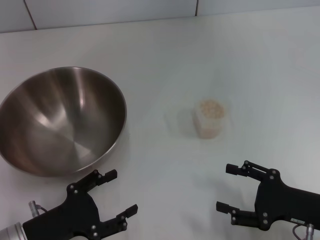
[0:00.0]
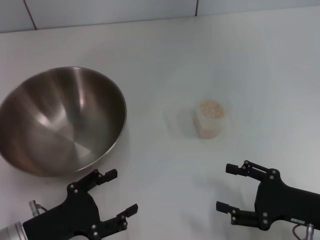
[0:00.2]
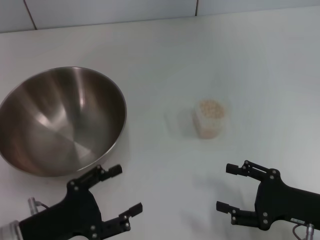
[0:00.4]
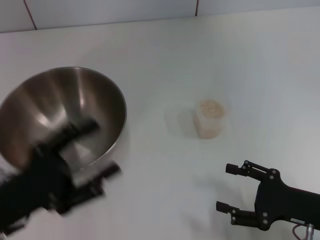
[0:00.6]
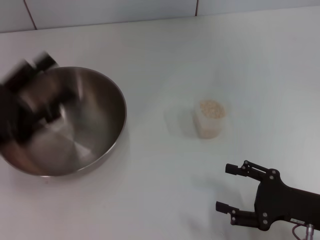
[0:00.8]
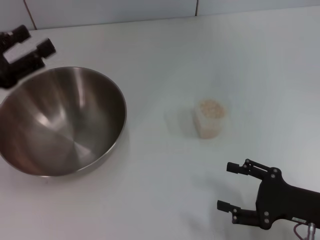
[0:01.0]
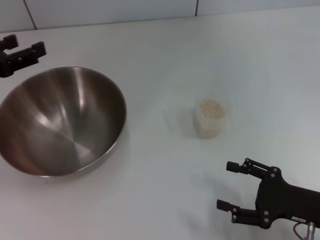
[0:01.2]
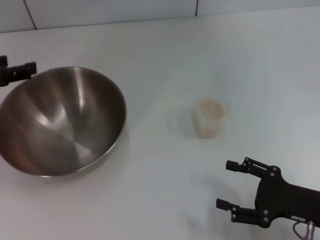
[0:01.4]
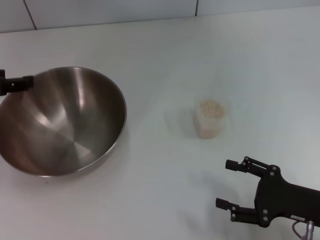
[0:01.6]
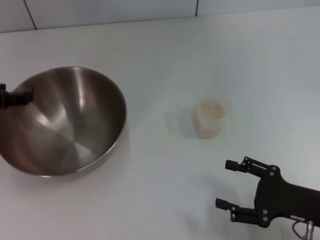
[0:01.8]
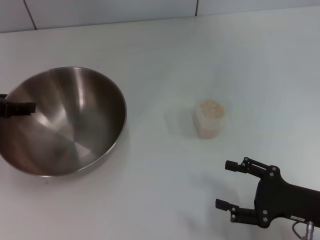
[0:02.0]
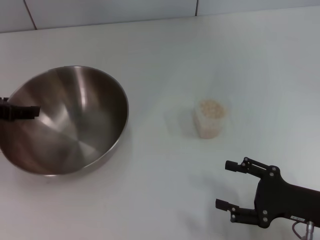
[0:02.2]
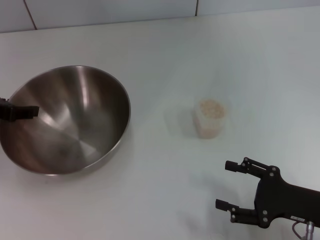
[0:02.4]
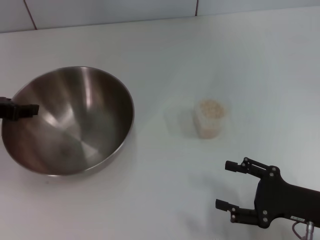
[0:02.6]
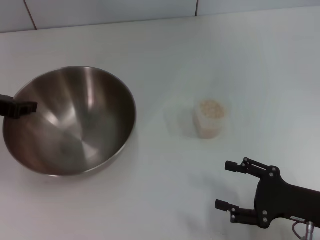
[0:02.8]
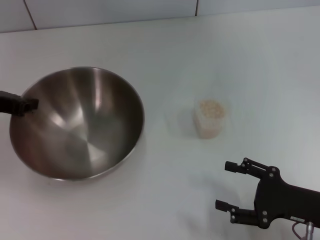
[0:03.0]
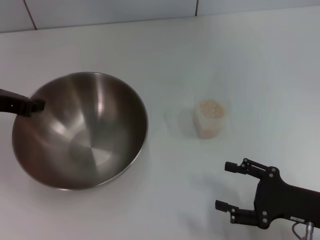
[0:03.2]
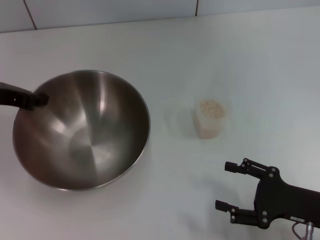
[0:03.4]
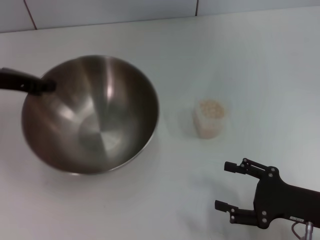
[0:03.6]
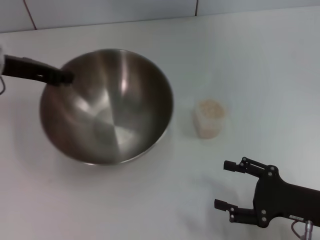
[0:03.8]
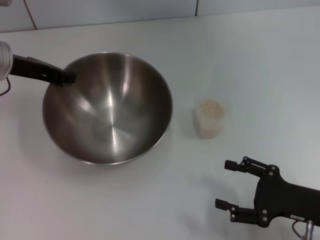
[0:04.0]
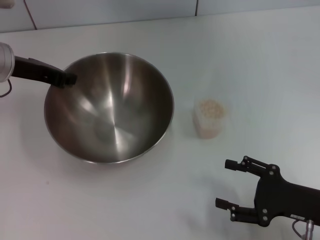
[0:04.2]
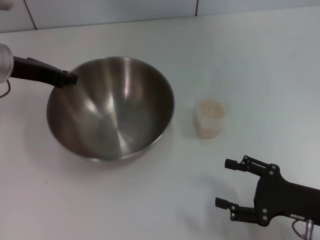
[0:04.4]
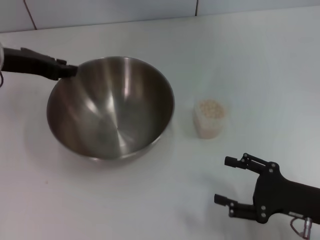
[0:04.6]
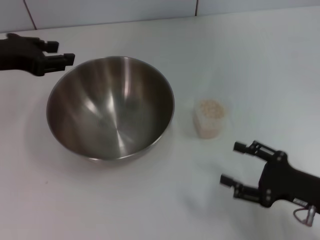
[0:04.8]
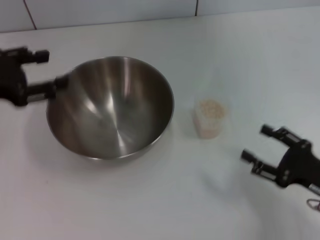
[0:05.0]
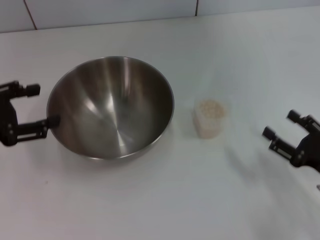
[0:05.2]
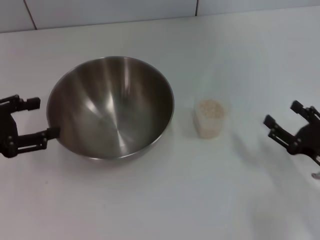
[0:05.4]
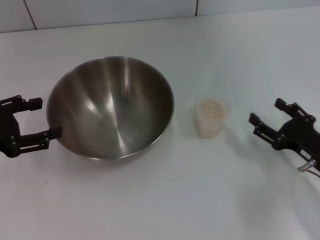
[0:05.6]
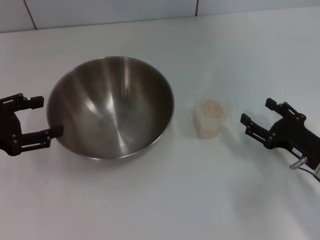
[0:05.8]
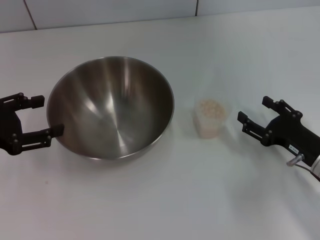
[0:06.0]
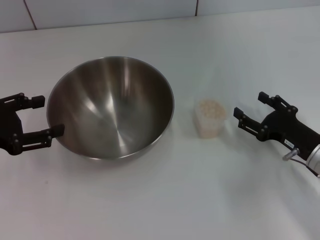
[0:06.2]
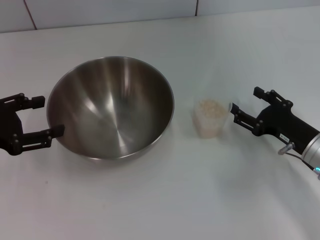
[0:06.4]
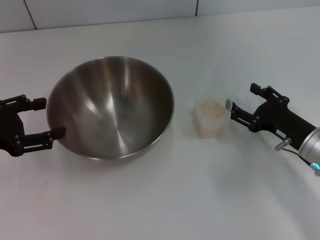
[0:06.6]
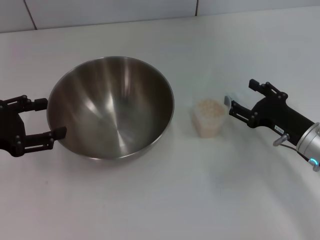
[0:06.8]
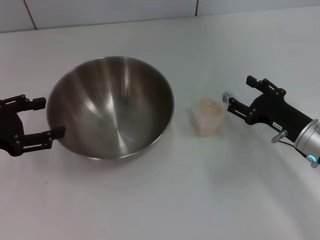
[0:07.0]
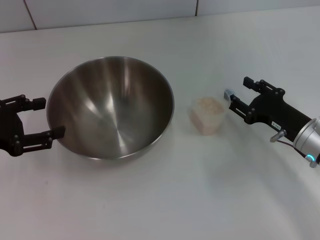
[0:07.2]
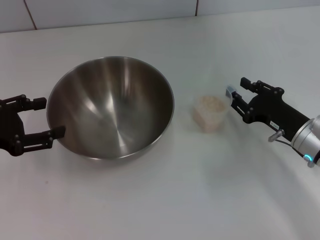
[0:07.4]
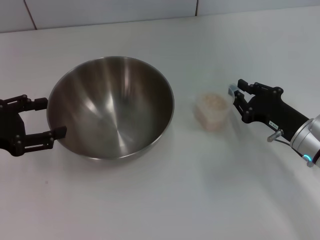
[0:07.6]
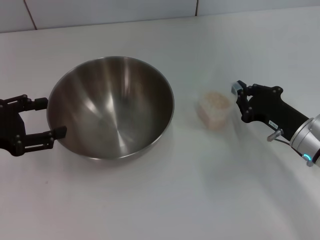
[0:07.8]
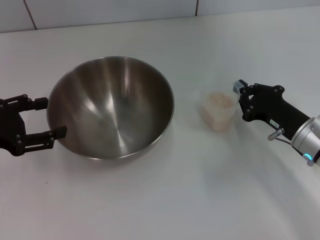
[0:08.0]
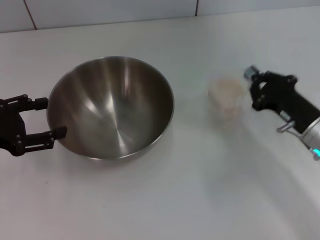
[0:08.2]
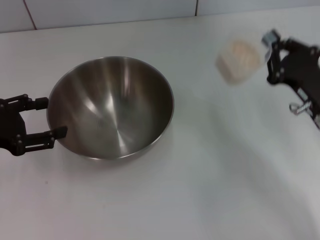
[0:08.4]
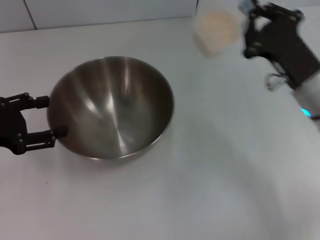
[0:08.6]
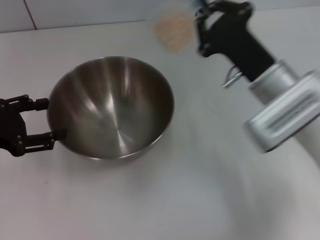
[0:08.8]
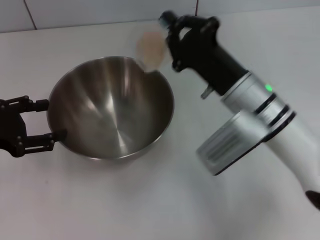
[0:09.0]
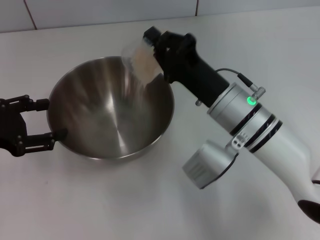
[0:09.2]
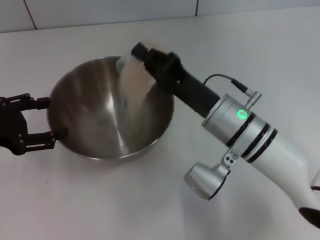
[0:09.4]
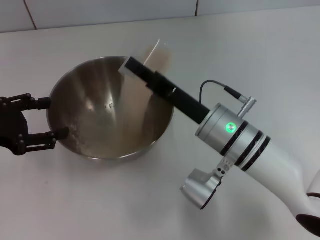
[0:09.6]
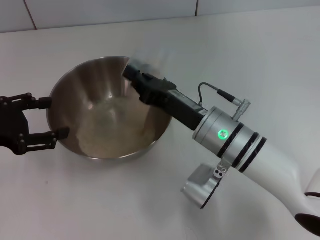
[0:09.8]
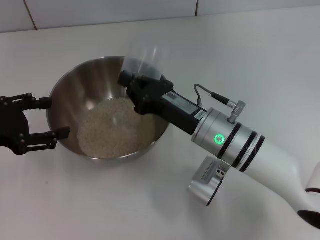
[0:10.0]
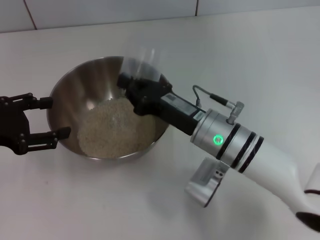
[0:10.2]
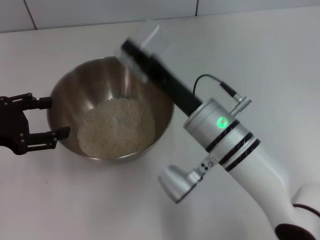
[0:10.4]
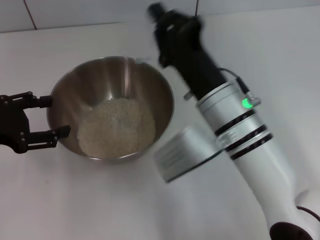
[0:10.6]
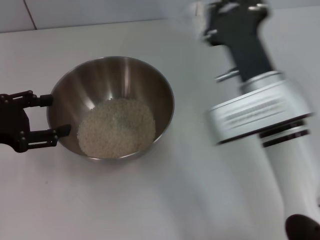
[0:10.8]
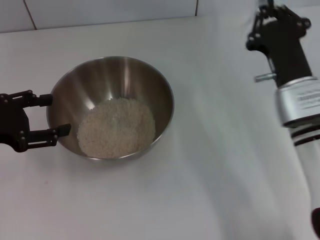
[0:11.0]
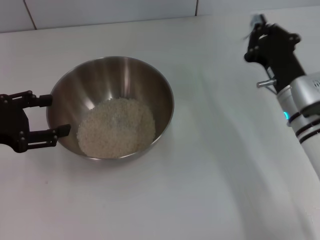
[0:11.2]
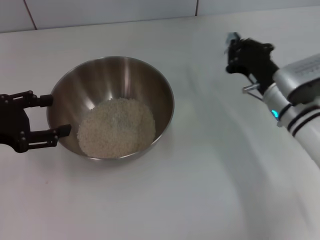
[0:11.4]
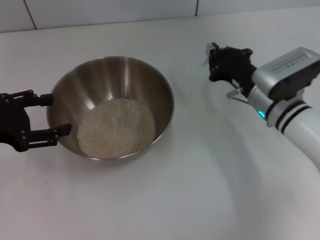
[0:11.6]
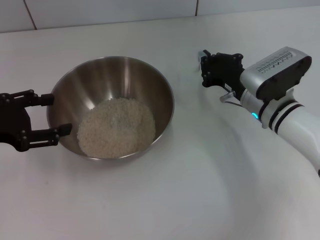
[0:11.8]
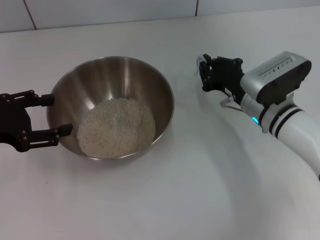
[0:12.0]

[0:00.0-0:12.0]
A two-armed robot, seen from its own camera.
Task of the whole recording: Place the bowl in the middle of the table with one hand and pour the rice from the grain cup into it with the other hand.
Step, 0.0 to 2.8 s: Pick up the bowl with the left gripper.
Step, 3.2 to 4.6 s: Place the bowl in the center of view with the left gripper.
Step, 4.8 to 8.2 s: Pick up the cup with rice in it with the right gripper.
Step, 8.6 to 10.8 s: Pour the rice from the cup into the bowl with the right gripper.
0.0 to 1.6 s: The left gripper moves forward, upward and to the left, approximately 25 cm.
1.6 to 3.0 s: The left gripper closes its fingers.
3.0 to 4.4 s: The left gripper is displaced to the right and forward by roughly 10 cm.
4.4 to 6.0 s: The right gripper travels forward by about 5 cm, while the left gripper travels backward and to the left by about 15 cm, and opens its fingers.
6.0 to 7.6 s: The right gripper moves some 5 cm, and closes.
7.6 to 9.0 s: The right gripper travels to the left and upward by approximately 15 cm, and closes its fingers.
9.0 to 10.4 s: The right gripper travels to the left by about 5 cm.
10.4 to 12.0 s: The right gripper shifts about 15 cm to the right and forward.

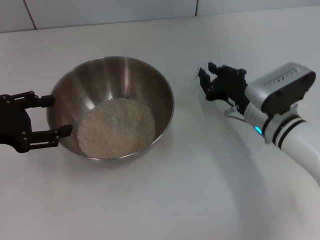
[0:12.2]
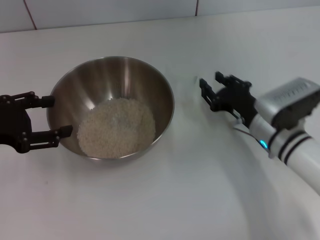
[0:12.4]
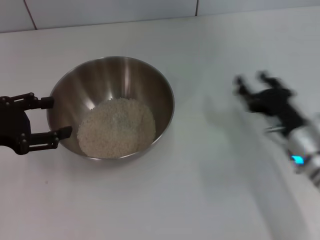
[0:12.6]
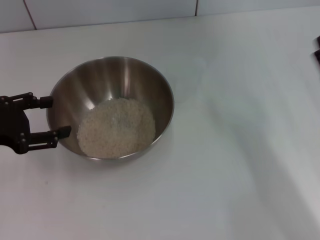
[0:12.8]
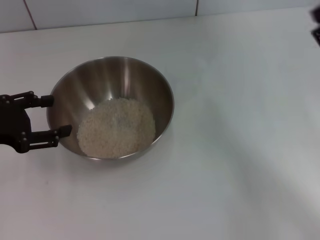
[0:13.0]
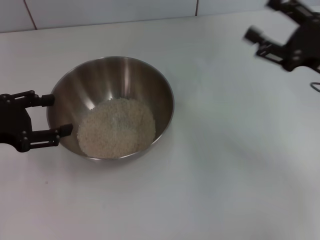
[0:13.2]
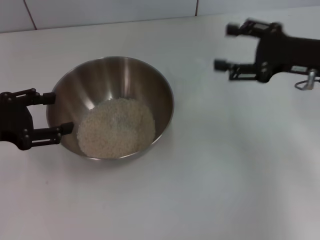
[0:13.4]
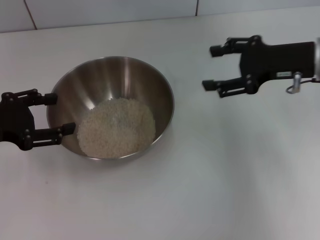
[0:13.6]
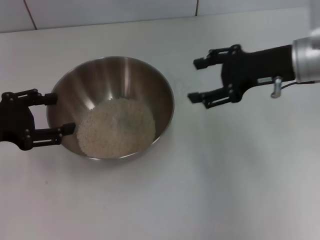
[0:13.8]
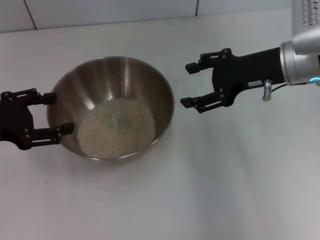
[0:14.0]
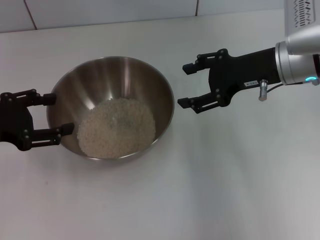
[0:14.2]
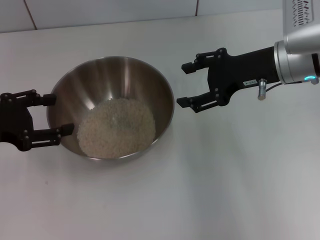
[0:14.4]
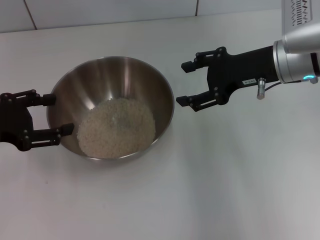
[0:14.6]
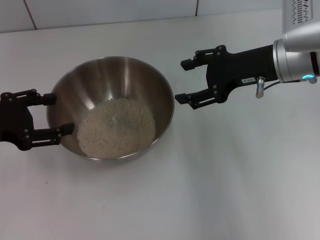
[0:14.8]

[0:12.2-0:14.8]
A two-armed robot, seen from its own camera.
Task of the whole recording: Place the bowl in the middle of the table with one hand and pour the rice from the grain cup into it with the other hand.
12.2 to 13.4 s: The right gripper travels upward and to the right by roughly 15 cm, and opens up.
13.4 to 14.8 s: The right gripper travels to the left by approximately 5 cm.

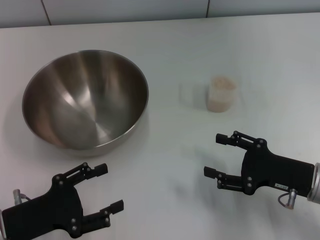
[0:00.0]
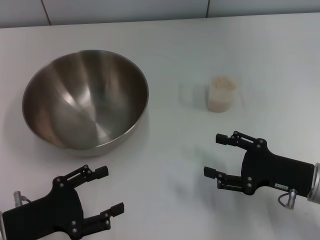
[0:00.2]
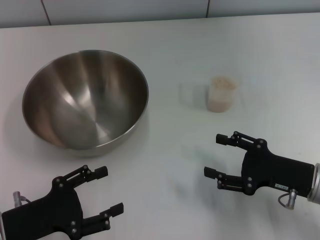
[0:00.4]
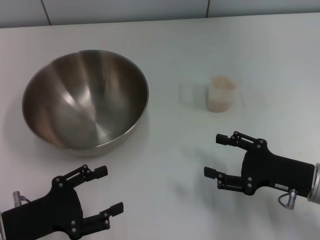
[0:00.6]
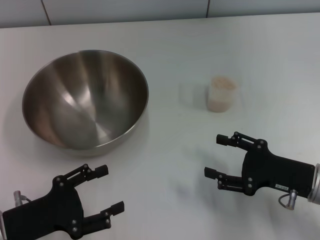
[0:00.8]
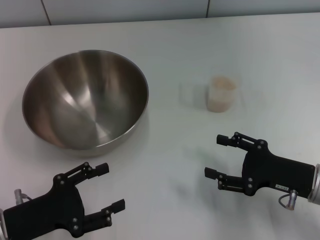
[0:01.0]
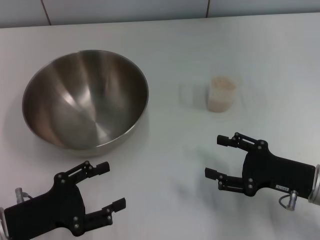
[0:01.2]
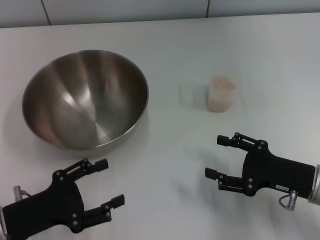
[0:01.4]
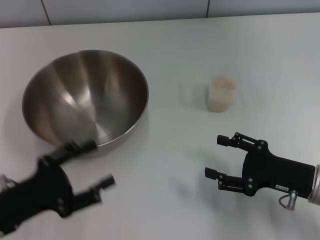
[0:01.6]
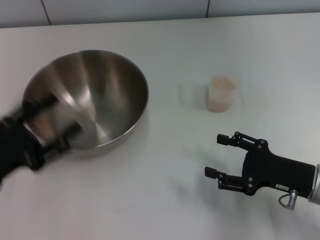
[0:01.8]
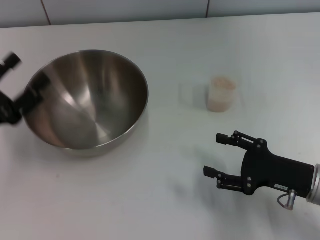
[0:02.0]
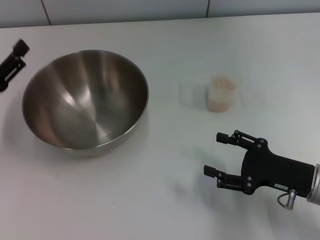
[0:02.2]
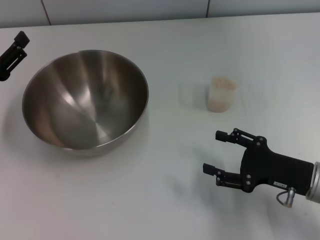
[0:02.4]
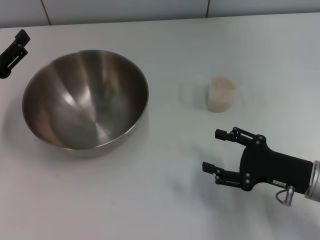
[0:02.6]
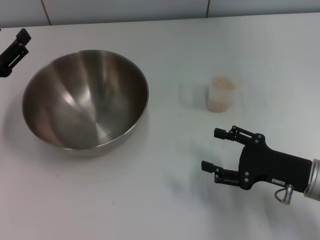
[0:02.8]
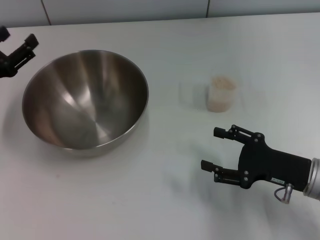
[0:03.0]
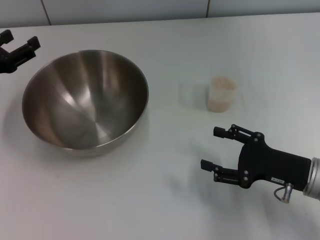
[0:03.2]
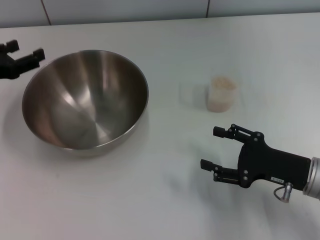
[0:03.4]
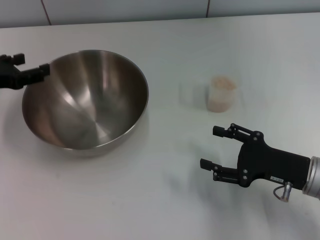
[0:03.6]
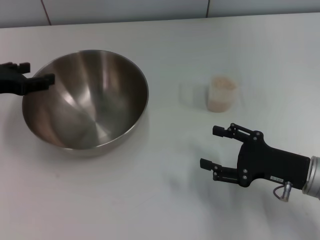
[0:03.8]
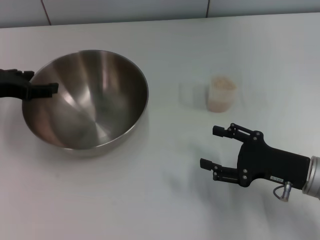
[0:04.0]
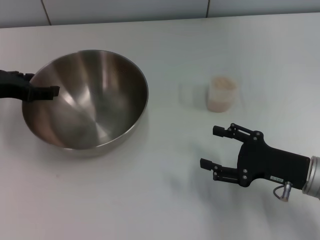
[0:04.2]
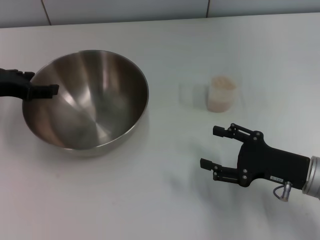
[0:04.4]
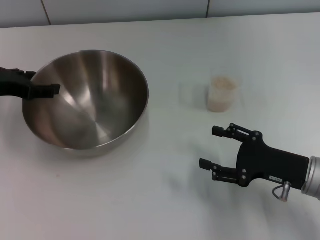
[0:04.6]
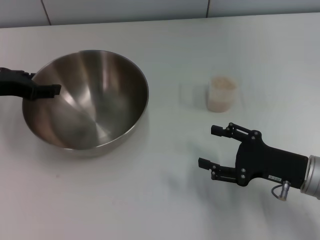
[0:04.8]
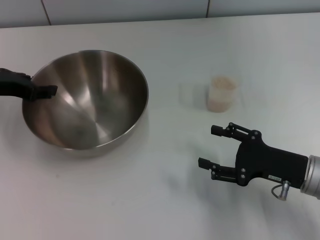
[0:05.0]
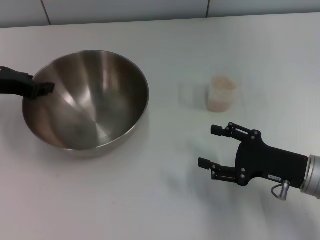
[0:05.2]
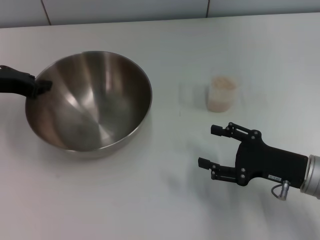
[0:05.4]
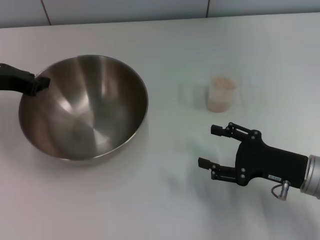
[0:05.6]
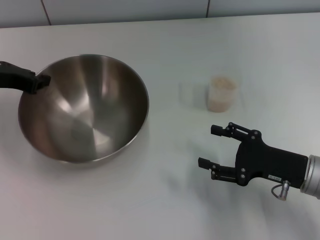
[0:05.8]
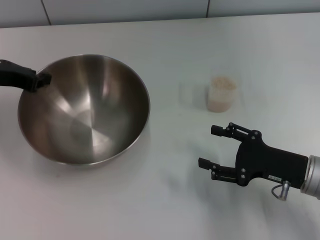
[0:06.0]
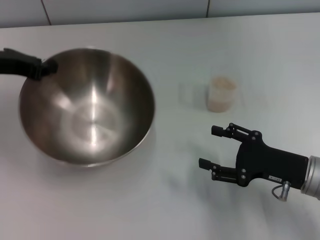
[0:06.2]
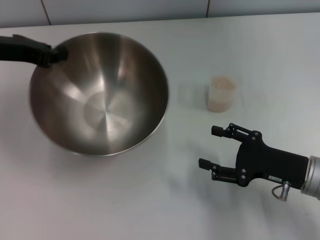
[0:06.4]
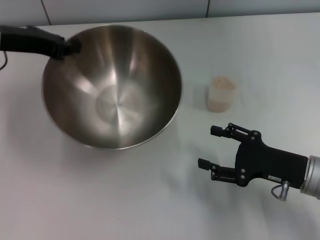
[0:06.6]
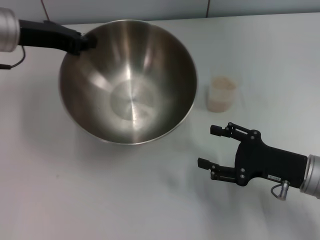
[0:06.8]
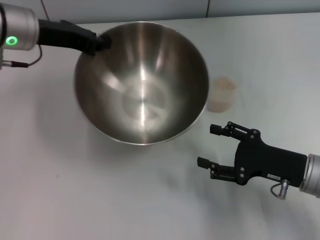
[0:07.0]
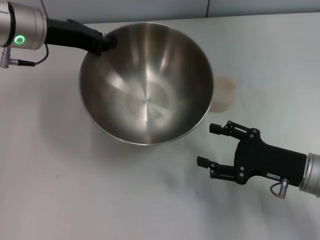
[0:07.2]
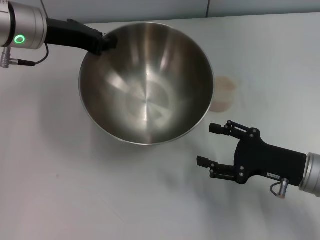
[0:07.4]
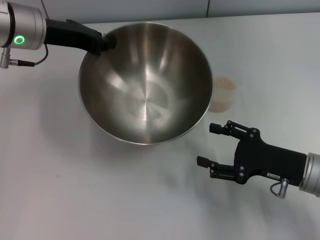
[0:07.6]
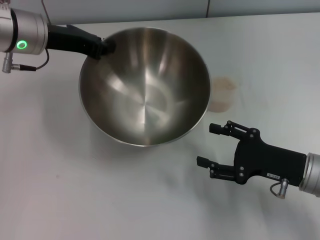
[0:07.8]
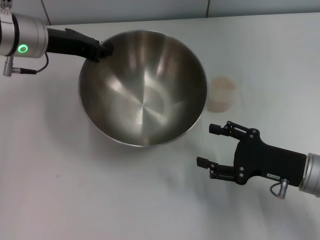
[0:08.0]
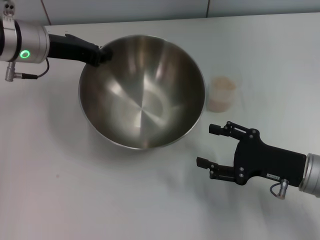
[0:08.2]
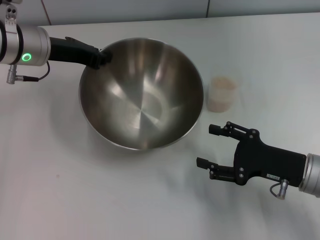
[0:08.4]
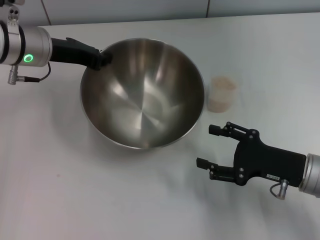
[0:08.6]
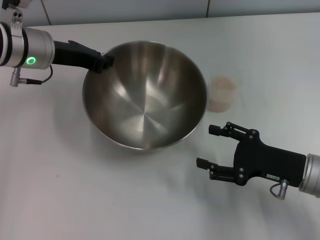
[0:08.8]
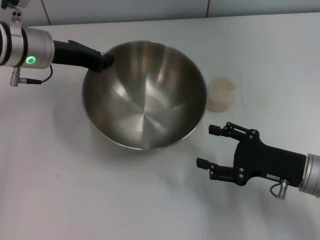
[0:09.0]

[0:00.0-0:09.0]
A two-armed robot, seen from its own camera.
Task of the whole recording: Place the bowl in the middle of the table with one hand and pour the rice from the grain cup into it with the other hand.
Step, 0.0 to 5.8 s: Pick up the bowl with the left gripper.
0.0 to 1.6 s: The grippers make only small movements.
1.6 to 3.0 s: The left gripper travels forward by about 15 cm.
3.0 to 4.4 s: The left gripper shifts by roughly 5 cm.
4.4 to 6.0 s: The left gripper closes its fingers.
6.0 to 7.6 s: The left gripper shifts approximately 10 cm to the right.
7.6 to 9.0 s: The grippers make only small movements.
